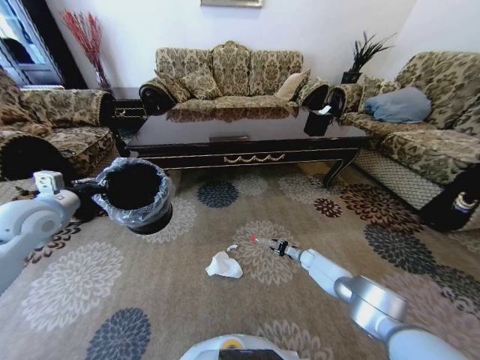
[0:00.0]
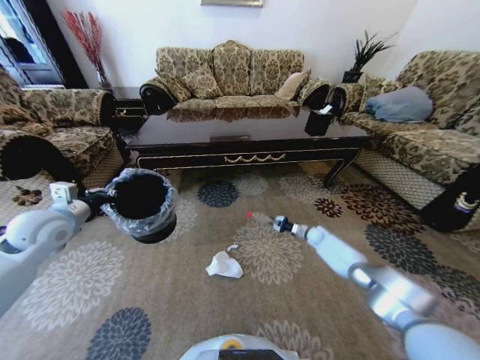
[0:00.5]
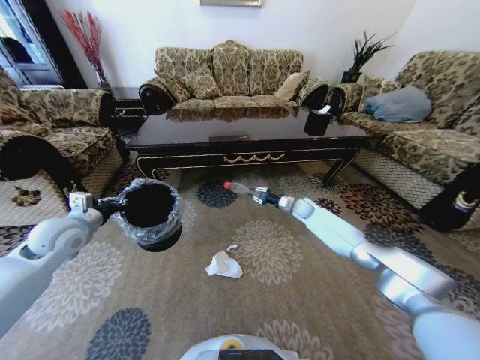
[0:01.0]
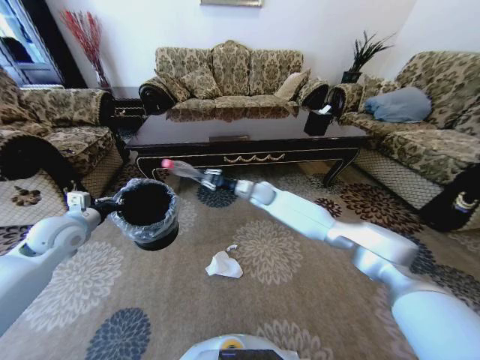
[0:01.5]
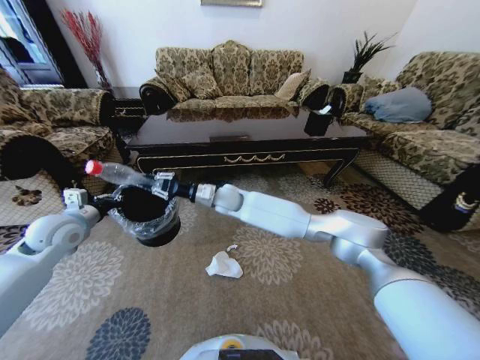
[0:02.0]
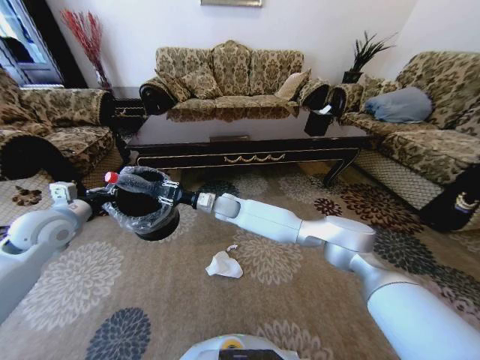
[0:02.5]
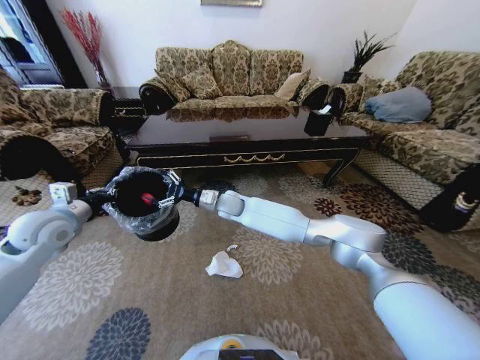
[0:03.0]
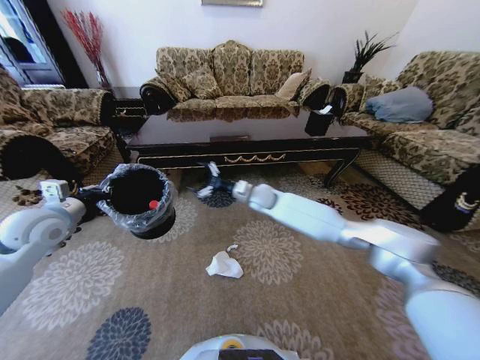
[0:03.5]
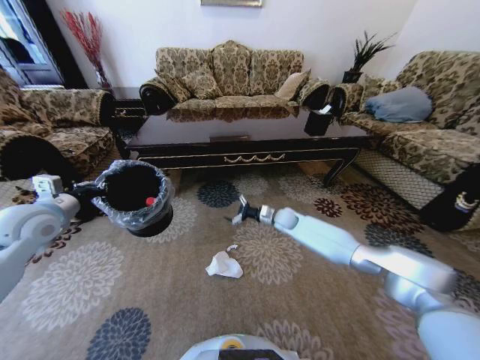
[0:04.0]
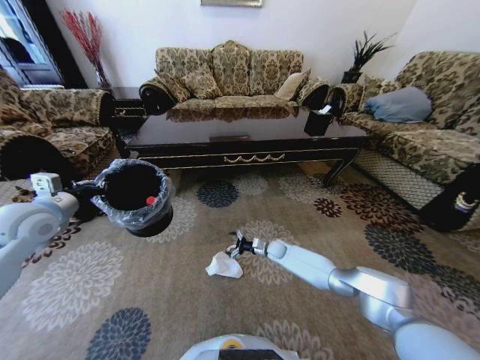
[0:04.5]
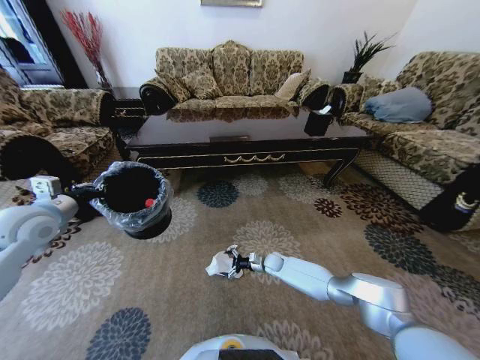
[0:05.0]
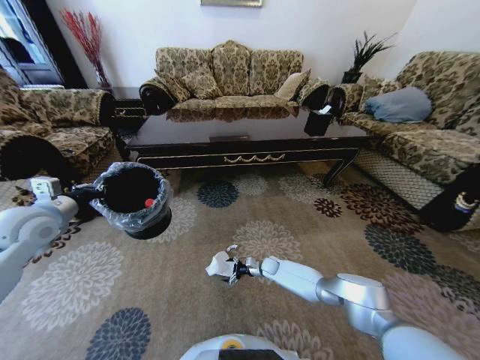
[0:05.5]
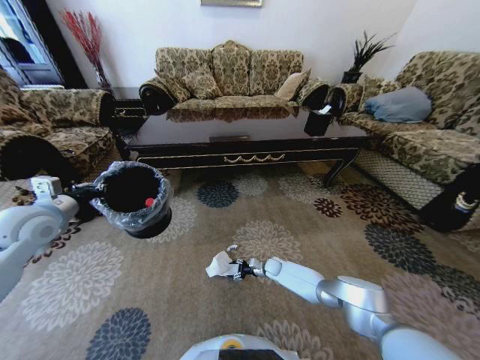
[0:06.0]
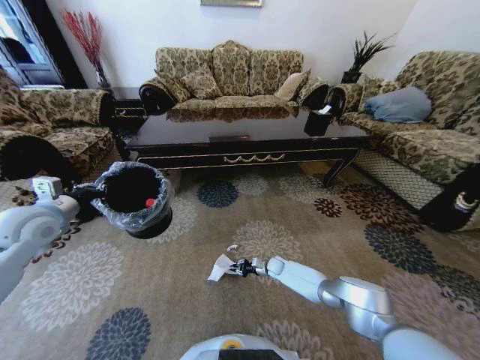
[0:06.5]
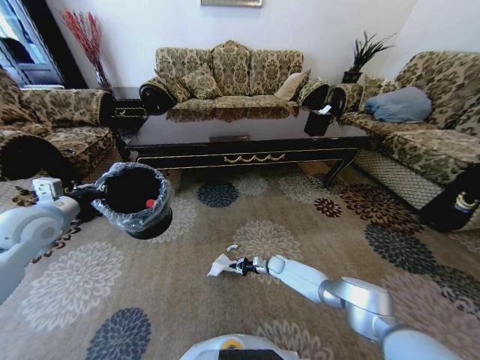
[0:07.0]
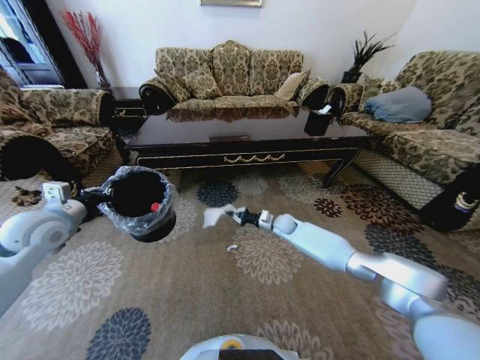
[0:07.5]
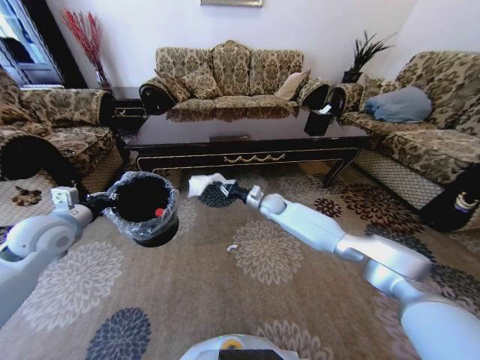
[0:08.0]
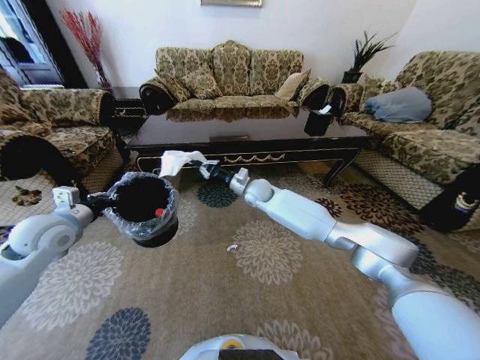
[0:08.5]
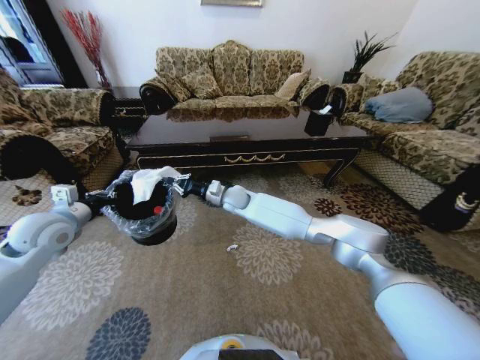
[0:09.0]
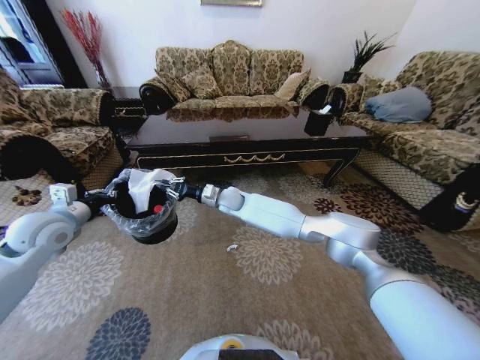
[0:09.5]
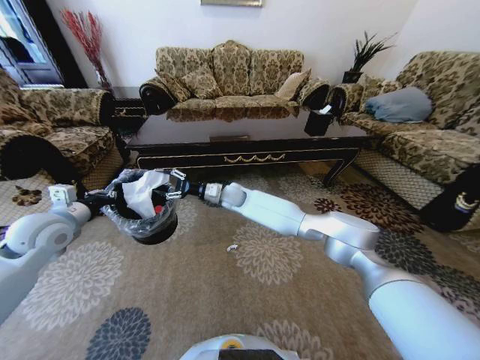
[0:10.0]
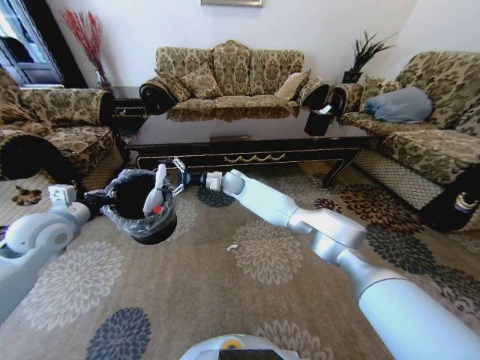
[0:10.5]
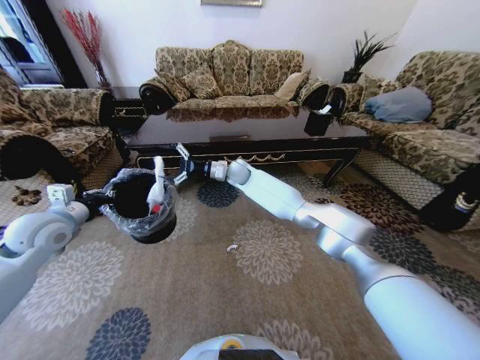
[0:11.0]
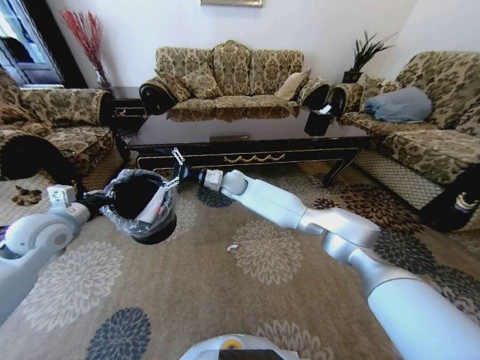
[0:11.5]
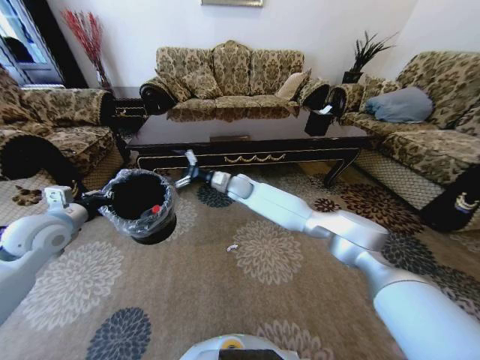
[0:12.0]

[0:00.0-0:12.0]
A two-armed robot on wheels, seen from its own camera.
Task of the whole recording: Move to the front of the table and pick up the trash from the floor, then place it into the trash bin.
0:00.0 to 0:02.0: The left gripper goes roughly 5 cm downward. Meanwhile the right gripper is displaced to the left and upward by some 50 cm.
0:02.0 to 0:04.0: The left gripper changes place by approximately 5 cm; the right gripper travels to the right and downward by approximately 30 cm, and opens up.
0:04.0 to 0:06.0: The right gripper moves downward and backward, approximately 25 cm.
0:06.0 to 0:08.0: The right gripper shifts about 30 cm upward and forward, and closes.
0:08.0 to 0:10.0: The right gripper shifts some 15 cm to the left, and opens up.
0:10.0 to 0:12.0: The right gripper opens its fingers.

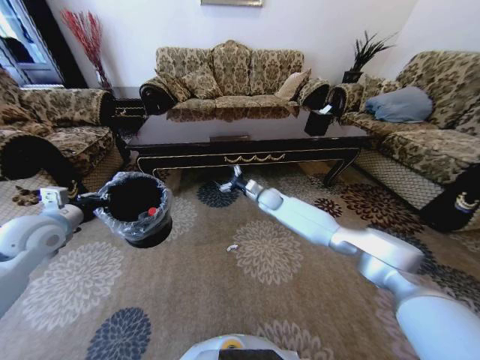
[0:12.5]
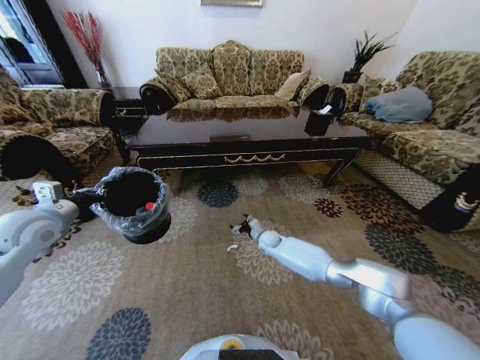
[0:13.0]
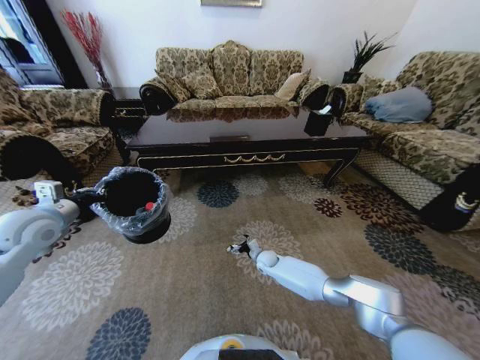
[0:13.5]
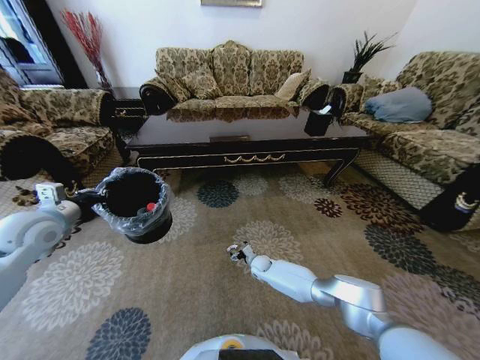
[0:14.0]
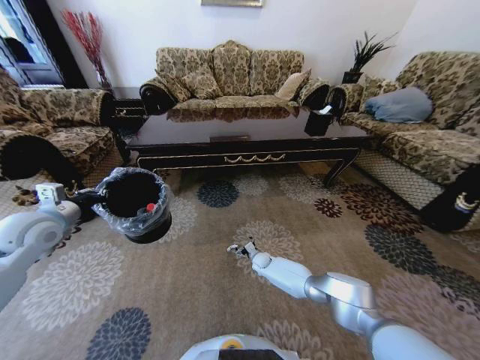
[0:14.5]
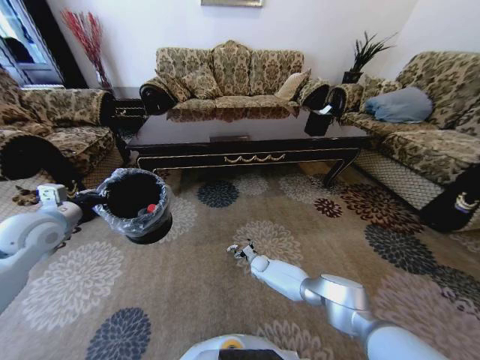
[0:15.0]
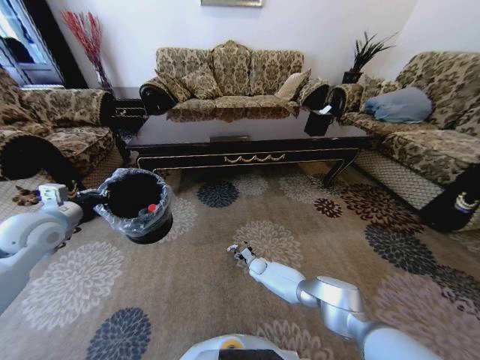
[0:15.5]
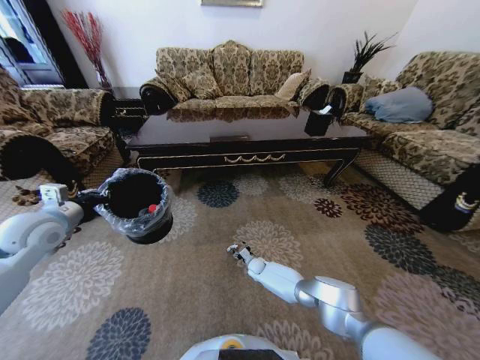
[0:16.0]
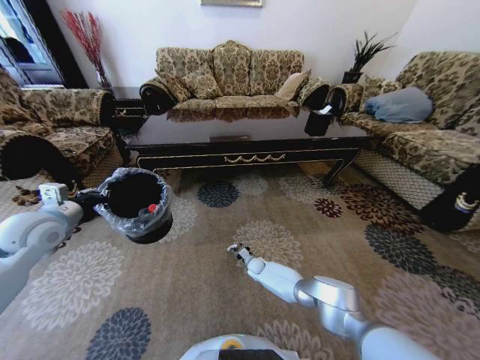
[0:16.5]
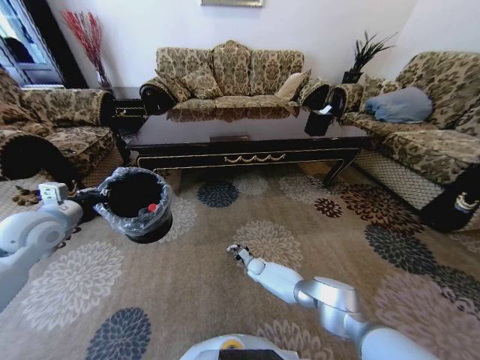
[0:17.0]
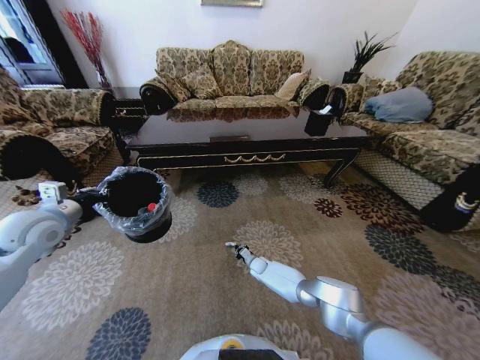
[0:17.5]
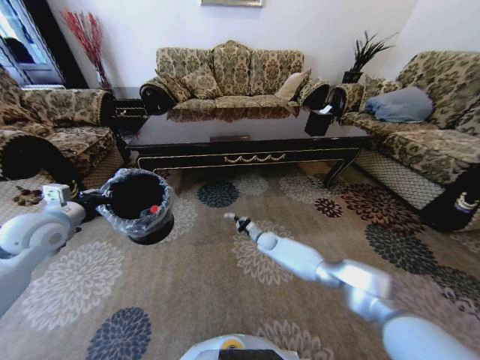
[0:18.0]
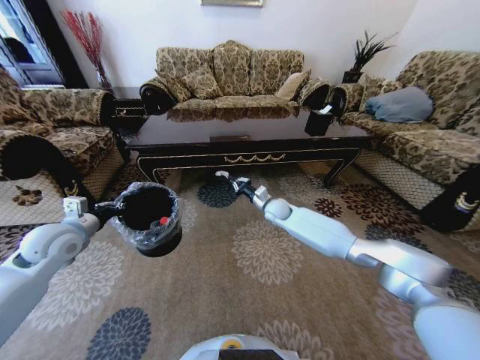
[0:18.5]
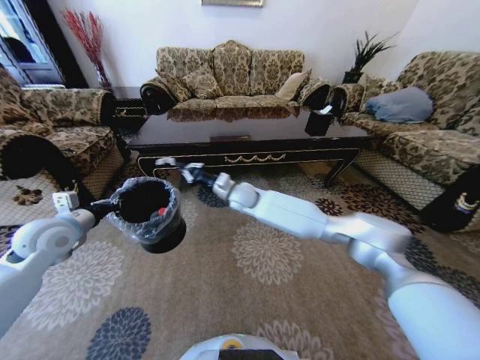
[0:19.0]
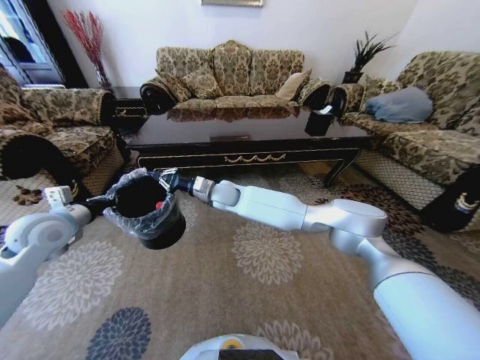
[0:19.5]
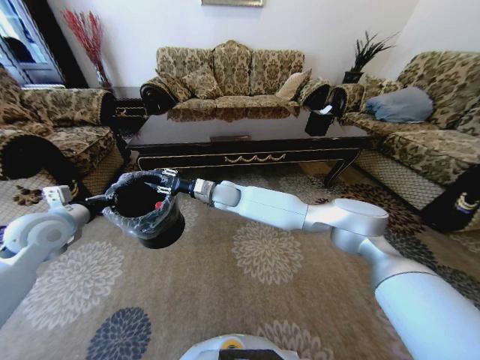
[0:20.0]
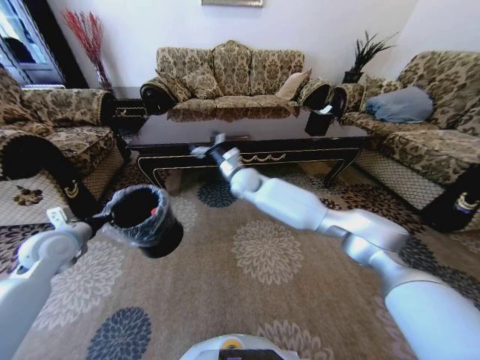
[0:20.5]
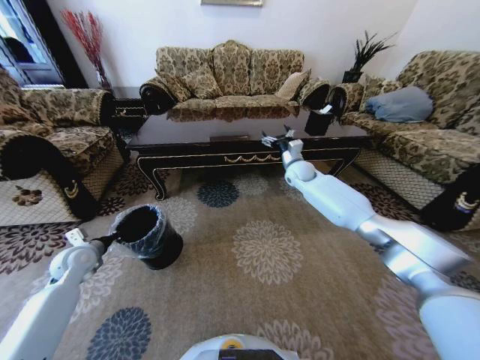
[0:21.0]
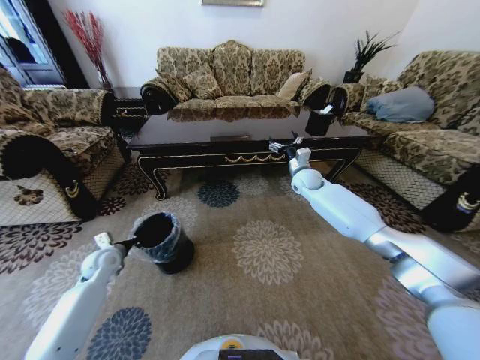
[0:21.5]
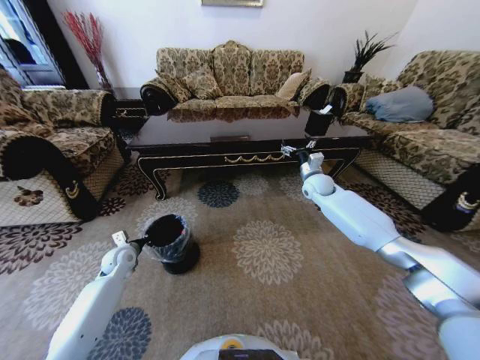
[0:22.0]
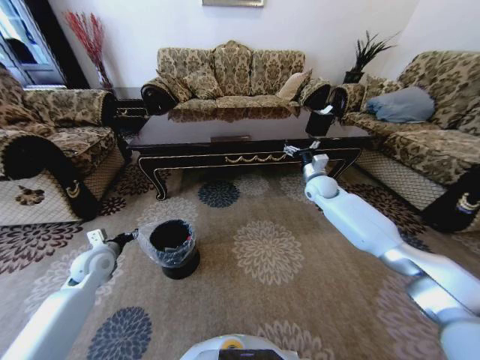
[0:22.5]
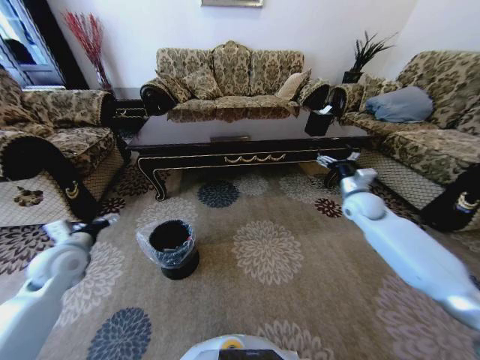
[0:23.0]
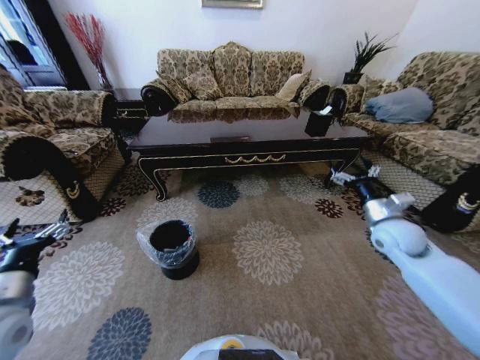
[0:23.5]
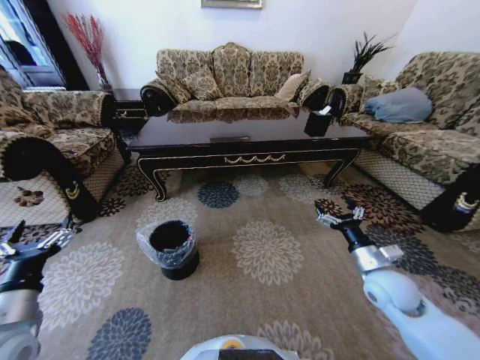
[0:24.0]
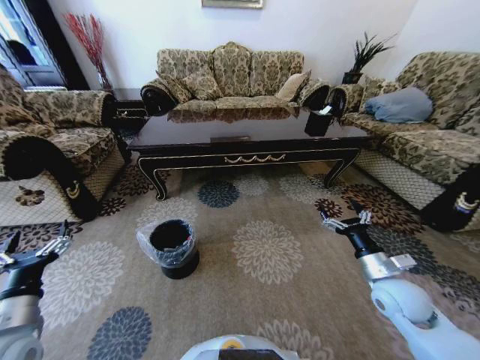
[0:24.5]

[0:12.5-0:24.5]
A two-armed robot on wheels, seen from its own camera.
Task of the whole recording: Move to the front of the table and pick up the trash from the floor, then place it into the trash bin.
0:12.5 to 0:14.5: The right gripper heads downward and backward, covering about 30 cm.
0:14.5 to 0:16.5: The right gripper closes up.
0:16.5 to 0:18.5: The right gripper moves upward, about 30 cm, and closes up.
0:18.5 to 0:20.5: The right gripper shifts about 20 cm to the left and upward, and opens.
0:20.5 to 0:22.5: The right gripper travels to the right by some 30 cm. The left gripper shifts about 10 cm downward, and opens its fingers.
0:22.5 to 0:24.5: The left gripper heads backward, covering approximately 20 cm, and opens its fingers; the right gripper moves backward, about 30 cm.

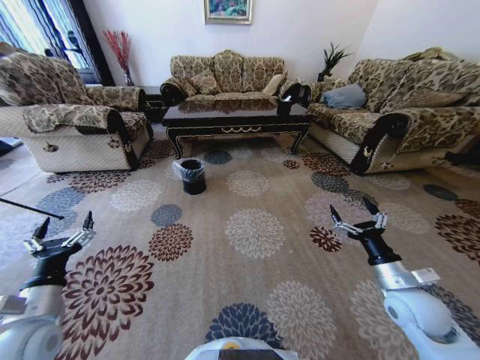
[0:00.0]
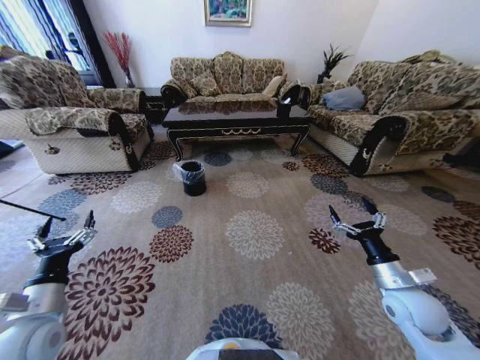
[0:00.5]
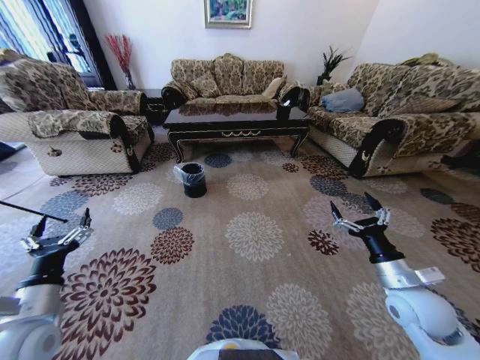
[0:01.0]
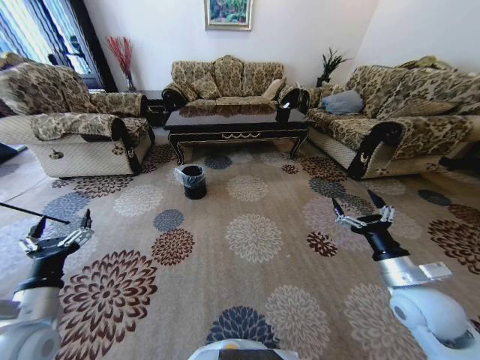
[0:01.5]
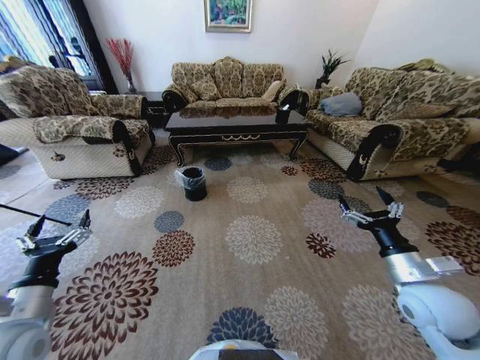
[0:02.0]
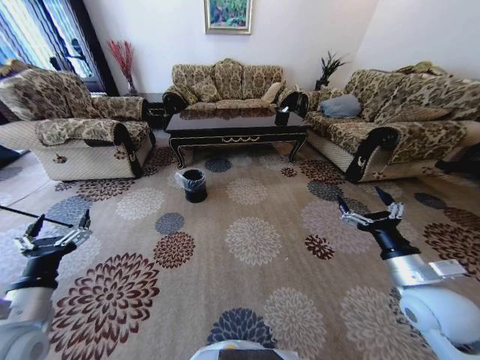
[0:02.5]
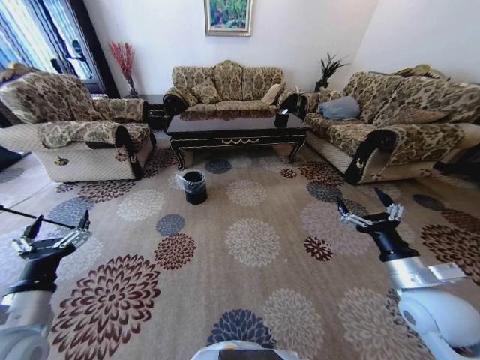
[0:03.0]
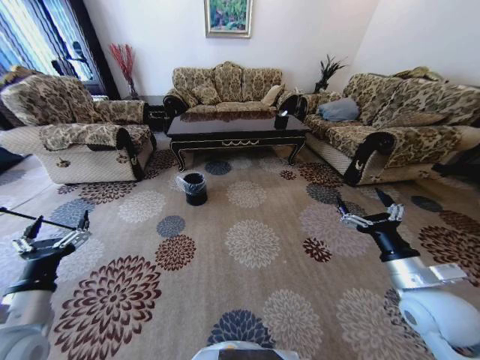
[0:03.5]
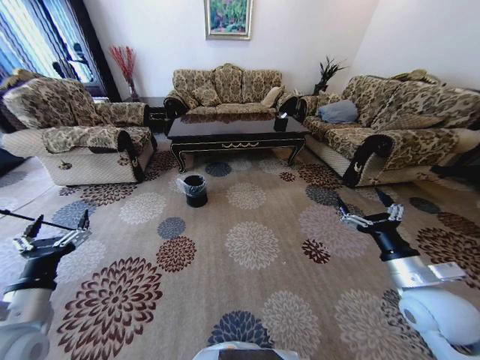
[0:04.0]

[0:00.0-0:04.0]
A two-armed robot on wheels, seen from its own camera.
Task of the whole recording: Move to the front of the table and pick up the trash from the floor, then place it into the trash bin.
0:00.0 to 0:02.0: The right gripper goes about 5 cm upward.
